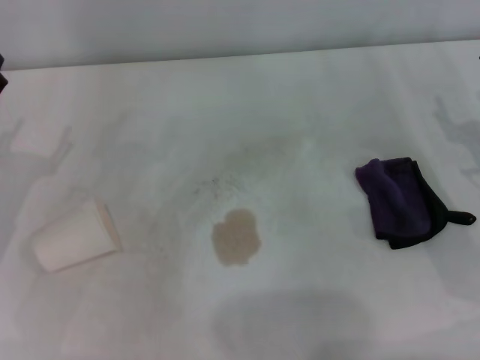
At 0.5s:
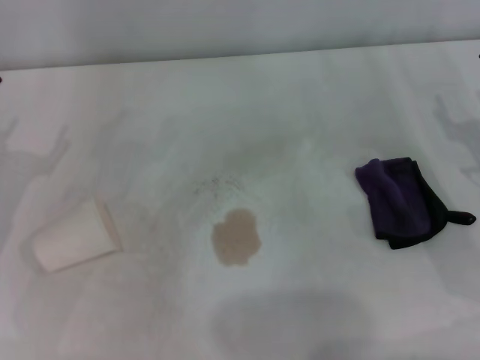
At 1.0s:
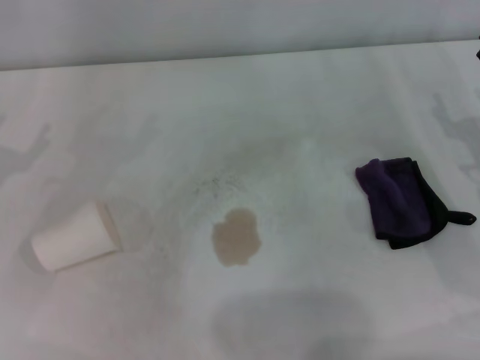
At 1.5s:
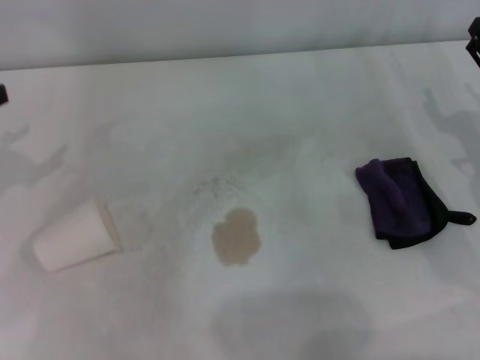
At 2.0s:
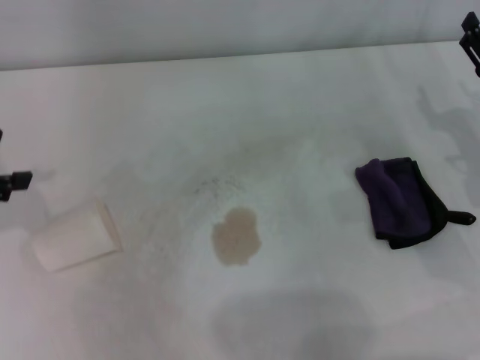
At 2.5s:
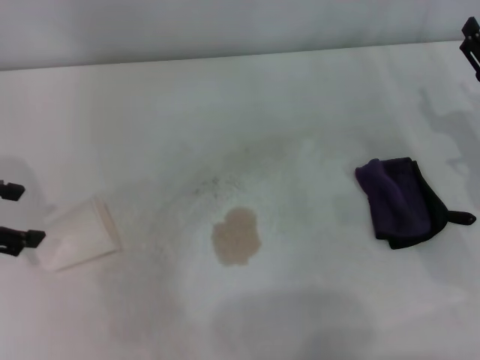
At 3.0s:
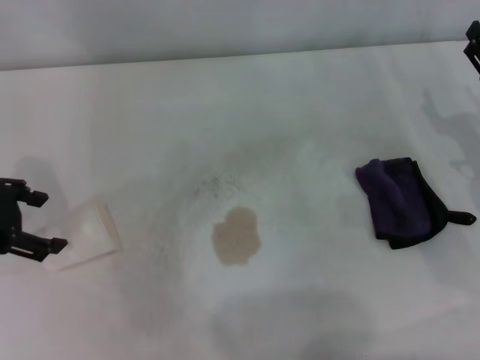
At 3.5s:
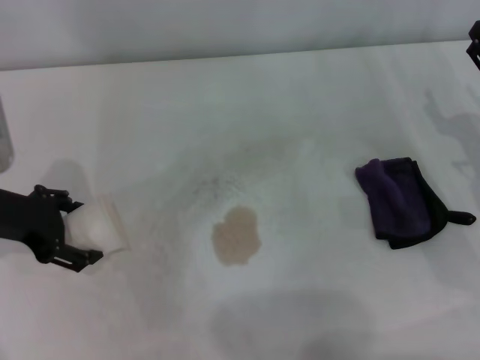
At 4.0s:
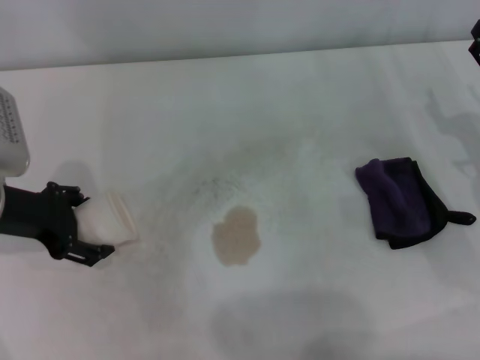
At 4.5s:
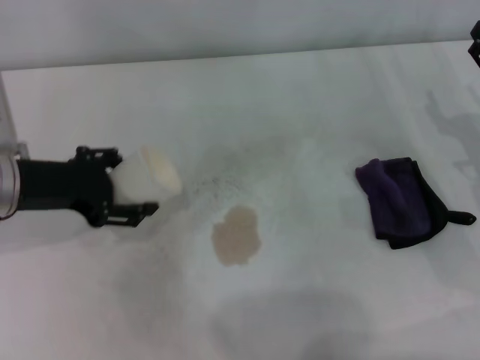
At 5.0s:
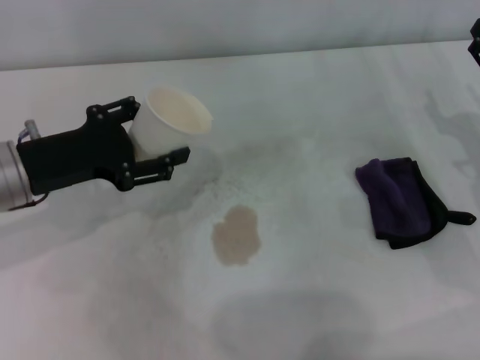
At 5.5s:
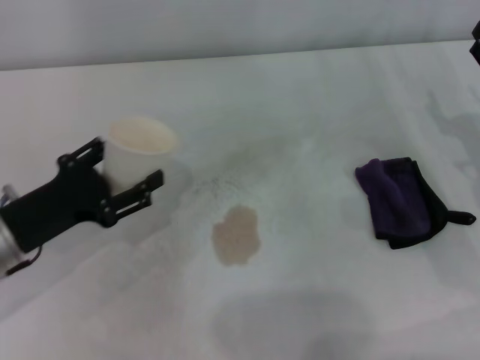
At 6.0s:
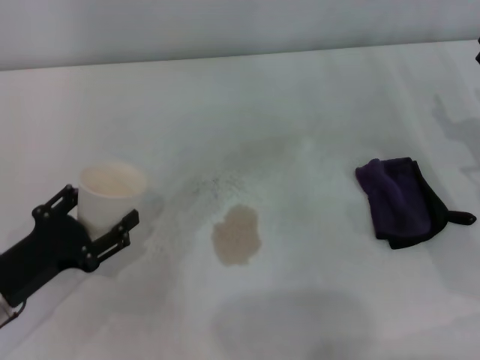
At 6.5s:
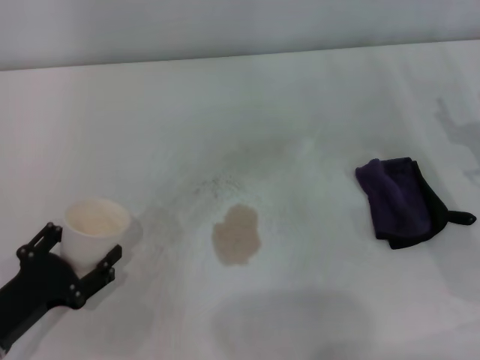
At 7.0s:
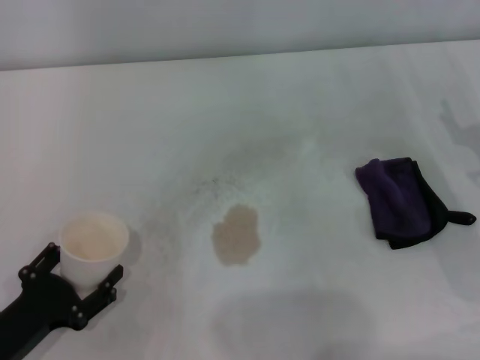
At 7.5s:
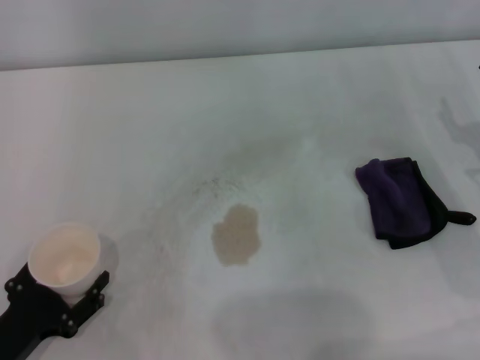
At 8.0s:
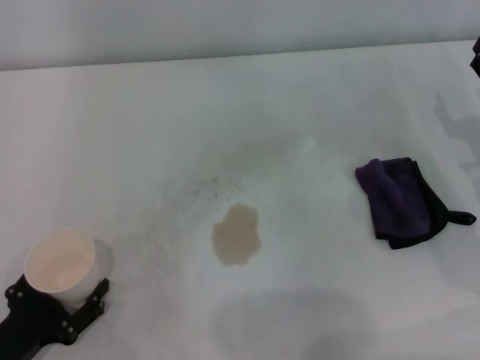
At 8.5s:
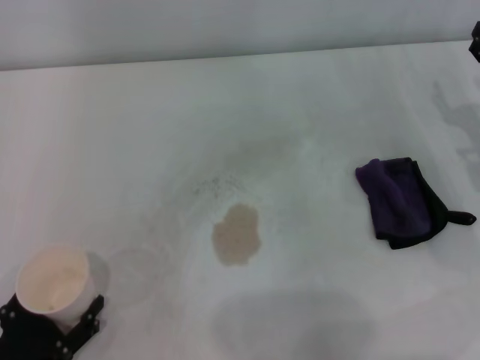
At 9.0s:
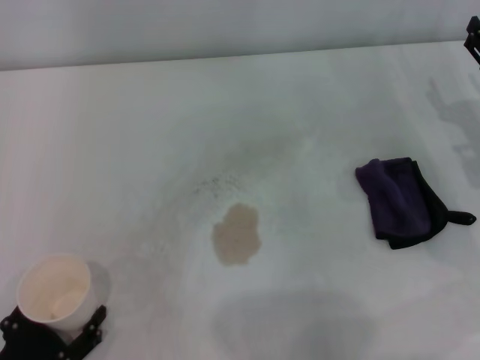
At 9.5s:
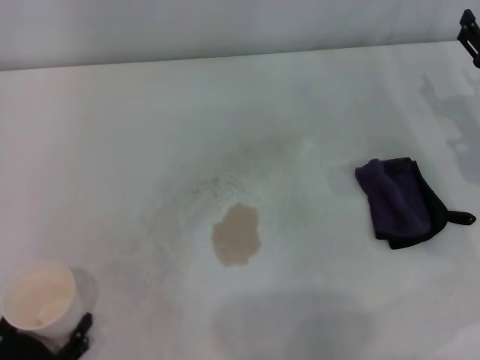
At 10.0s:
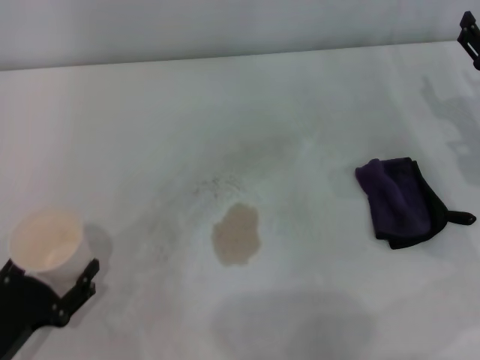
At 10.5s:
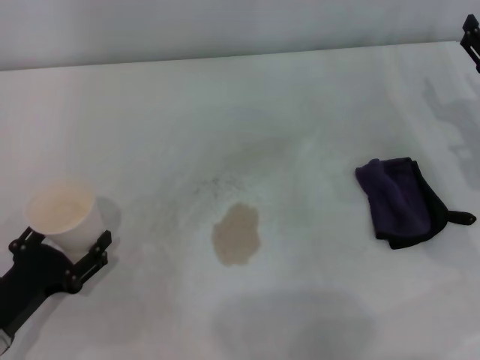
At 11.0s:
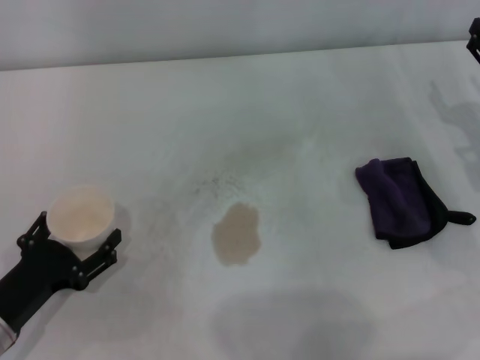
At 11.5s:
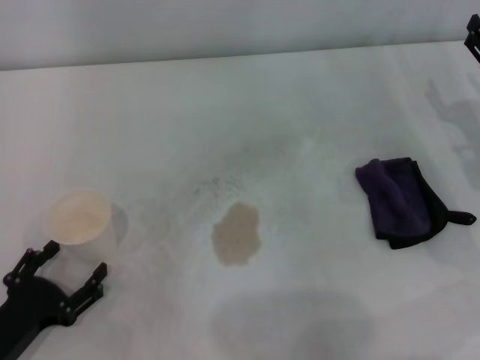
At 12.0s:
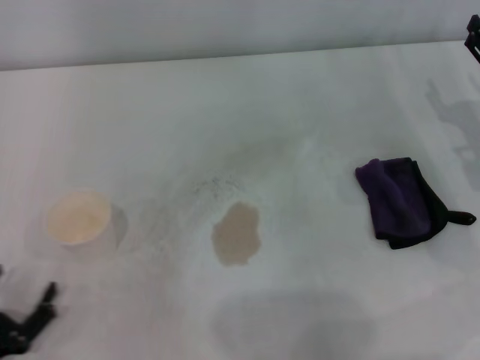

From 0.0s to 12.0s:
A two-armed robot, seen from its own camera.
Step, from 0.0s to 4.0s: Grasp the paper cup with the left gripper.
Step, from 4.5s to 11.0s: Stand the paper cup upright with the left gripper.
From 2.0s to 4.0s: The left gripper travels to the right and downward by some 10 cm.
From 4.0s to 6.0s: The left gripper shifts some 15 cm backward and downward.
From 6.0s to 8.0s: The left gripper moves backward, about 5 cm.
From 8.0s to 12.0s: The grippers stay close to where they were, moving slightly.

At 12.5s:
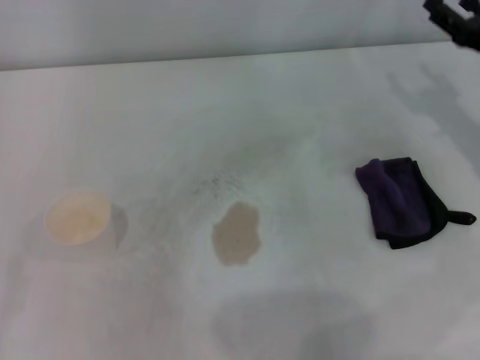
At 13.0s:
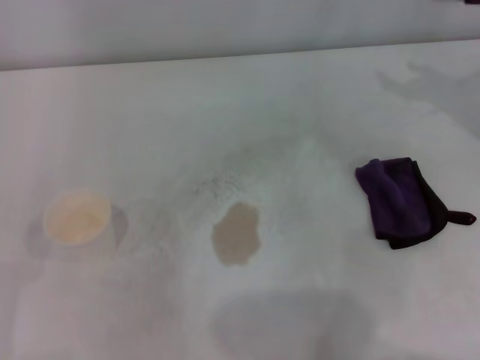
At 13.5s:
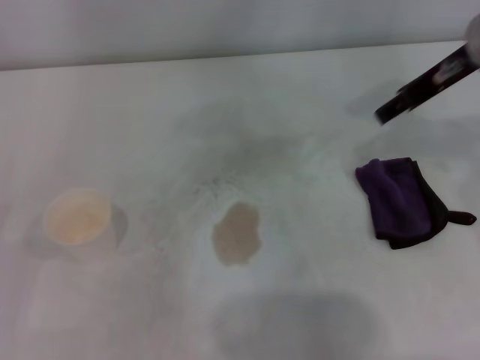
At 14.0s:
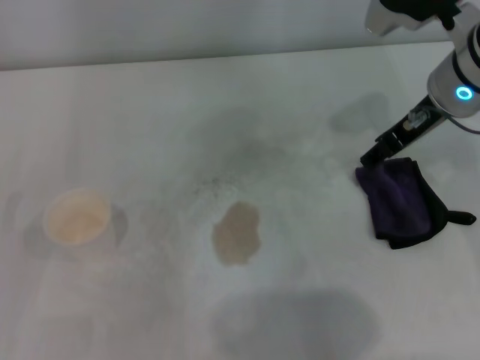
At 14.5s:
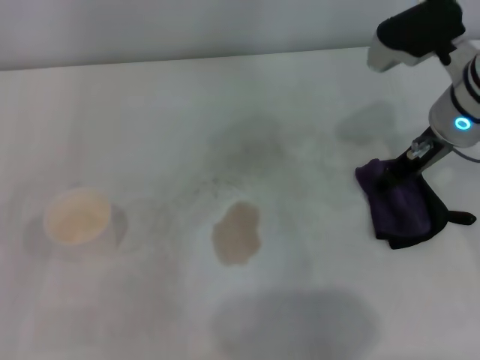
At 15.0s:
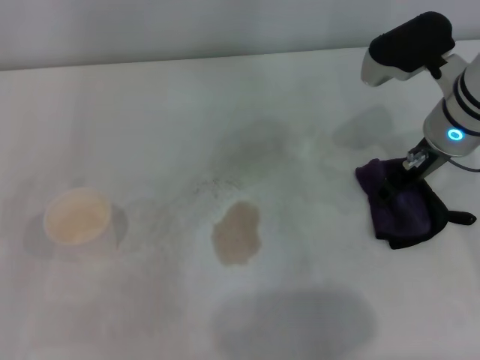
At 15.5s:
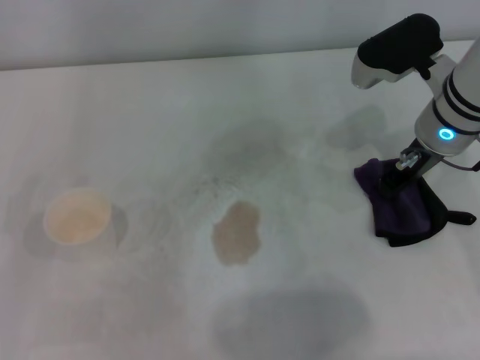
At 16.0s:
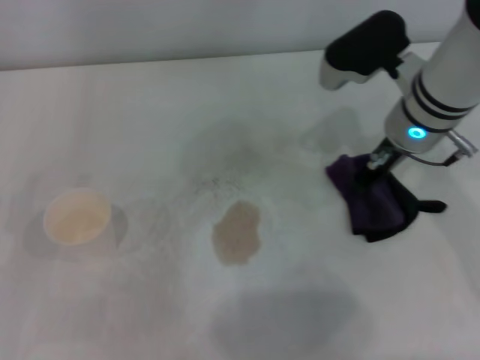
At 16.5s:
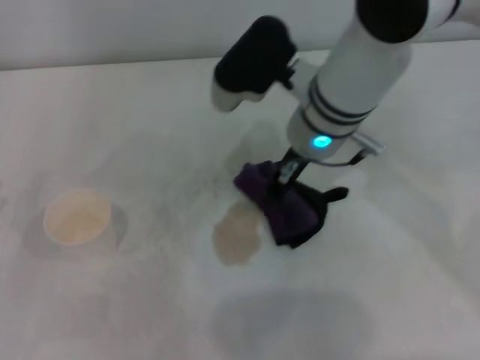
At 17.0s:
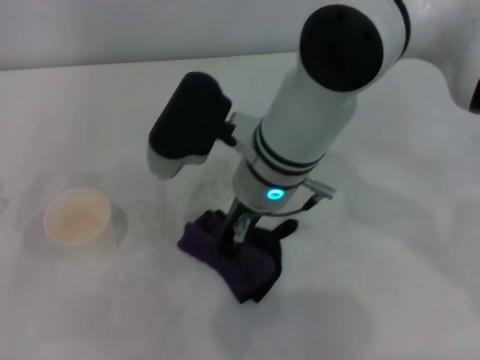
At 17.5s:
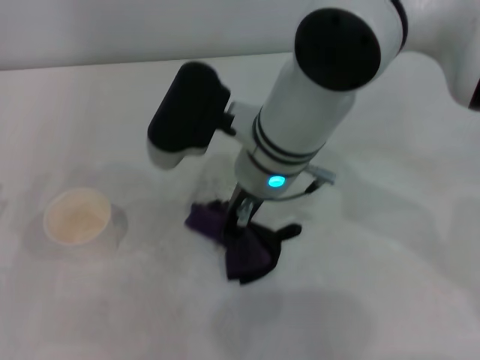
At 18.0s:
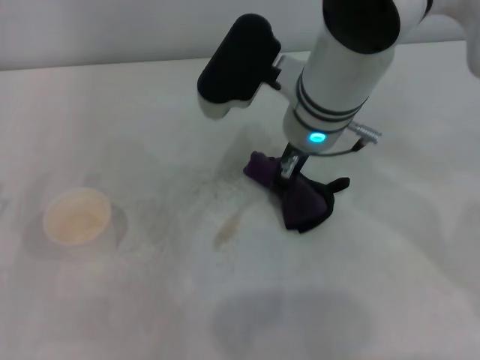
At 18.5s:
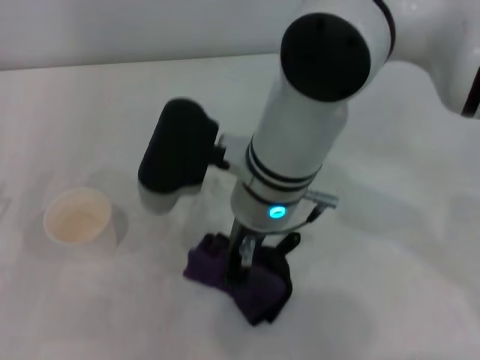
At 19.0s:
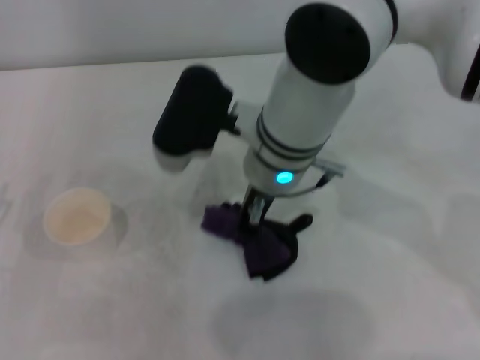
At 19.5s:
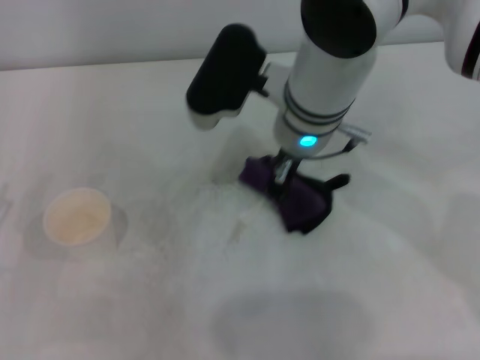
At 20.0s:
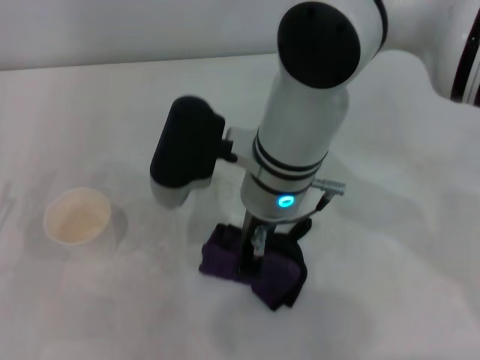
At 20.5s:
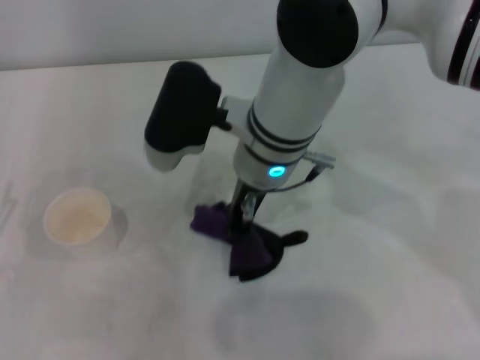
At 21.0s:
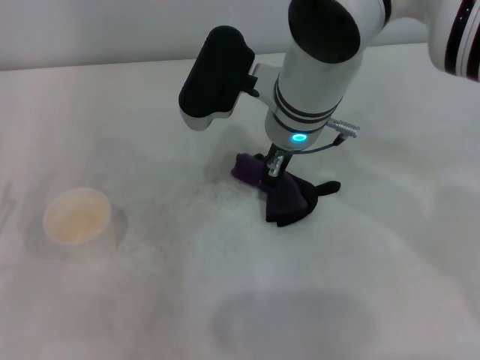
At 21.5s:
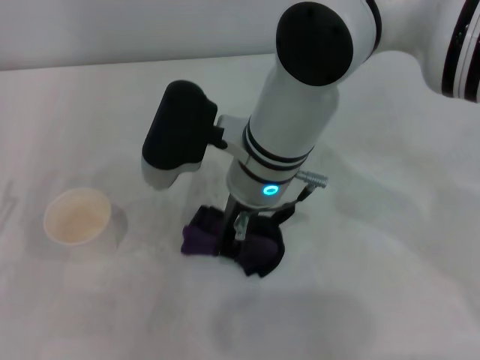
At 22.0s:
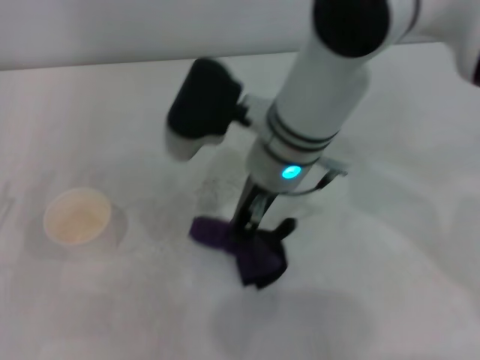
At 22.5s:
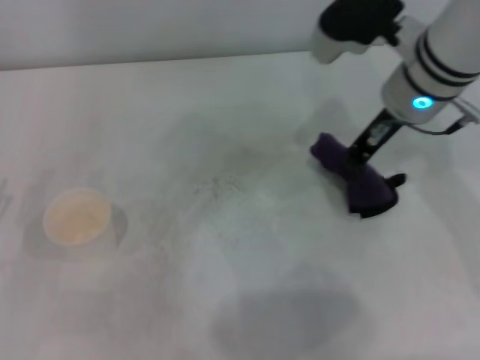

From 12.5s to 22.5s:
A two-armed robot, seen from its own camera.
Step, from 12.5s to 15.5s: Grasp the rag with the right gripper.
From 12.5s to 14.5s: The right gripper is displaced to the left and upward by approximately 15 cm.
From 14.5s to 16.5s: The right gripper travels to the left by about 15 cm, and closes up.
From 16.5s to 18.5s: The right gripper goes left and right, roughly 5 cm each way, reversing 2 times.
From 20.5s to 22.5s: The right gripper shifts roughly 15 cm to the right.

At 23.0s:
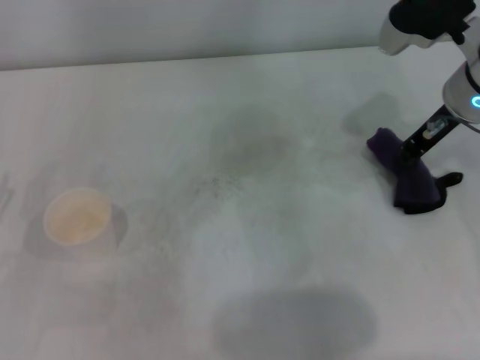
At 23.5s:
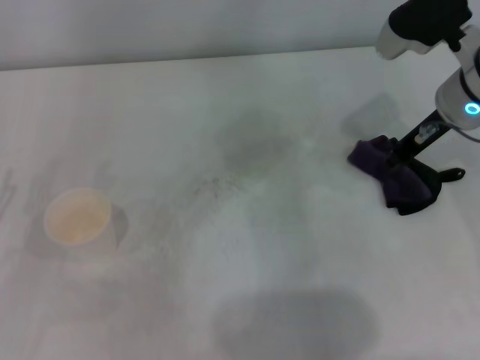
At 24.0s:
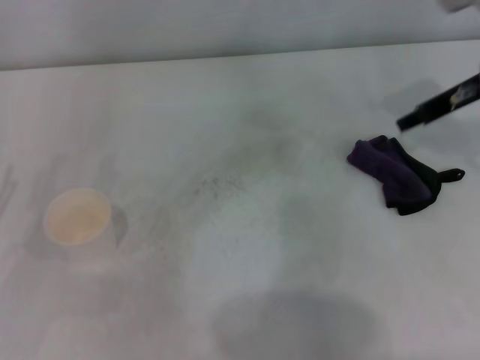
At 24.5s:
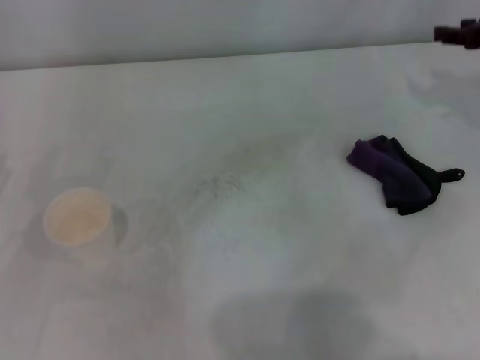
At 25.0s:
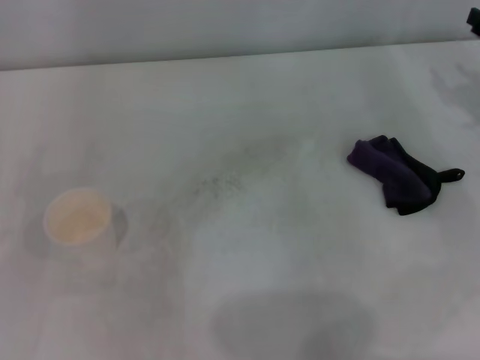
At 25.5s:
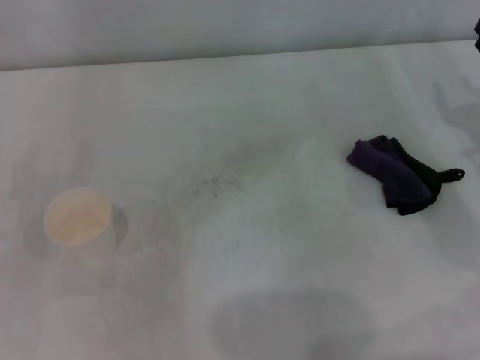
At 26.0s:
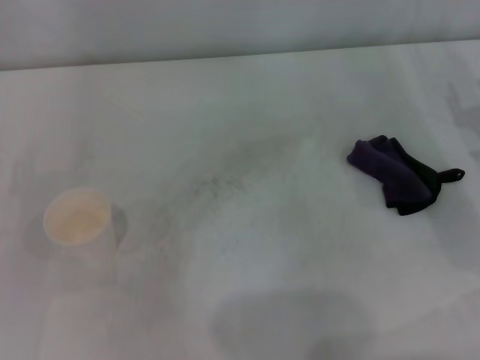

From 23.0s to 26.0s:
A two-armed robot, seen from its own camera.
From 23.0s to 24.5s: The right gripper goes roughly 15 cm to the right, and opens.
From 24.5s to 26.0s: The right gripper goes roughly 10 cm downward and backward.

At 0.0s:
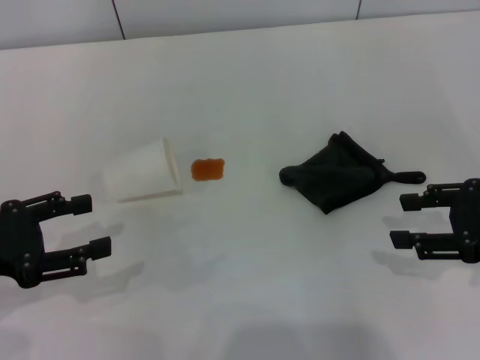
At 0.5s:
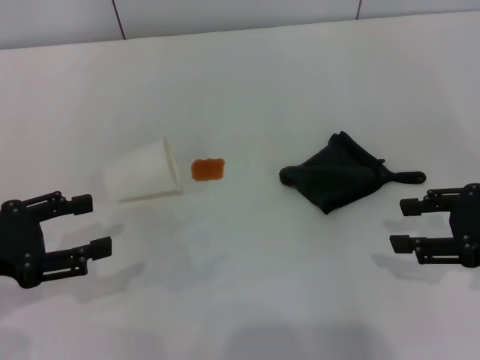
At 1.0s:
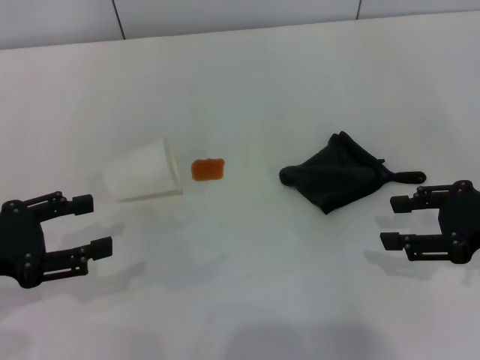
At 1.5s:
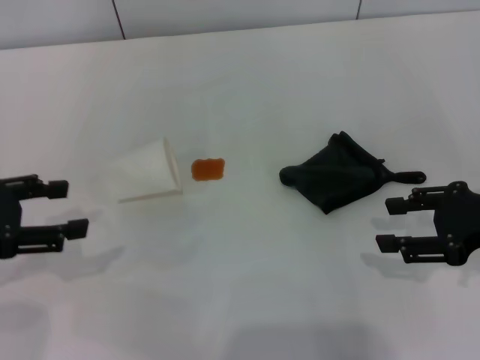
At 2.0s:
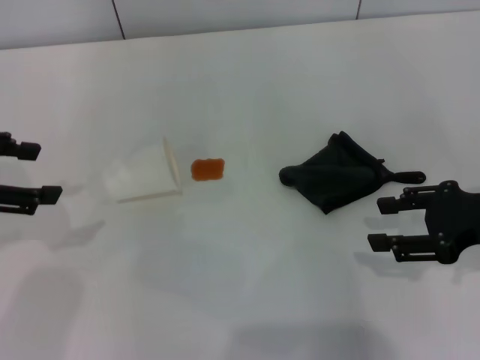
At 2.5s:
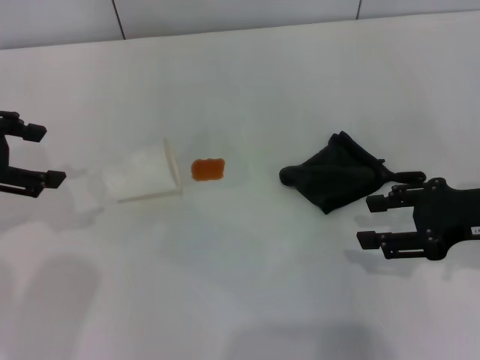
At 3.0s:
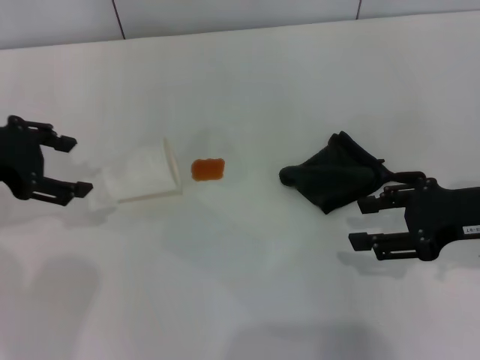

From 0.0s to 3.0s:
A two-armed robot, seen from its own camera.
From 0.0s to 1.5s: The grippers stay close to where they were, moving slightly.
From 1.5s to 3.0s: The left gripper goes some 10 cm forward.
